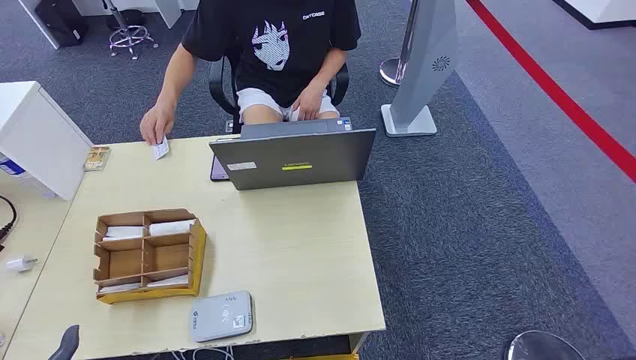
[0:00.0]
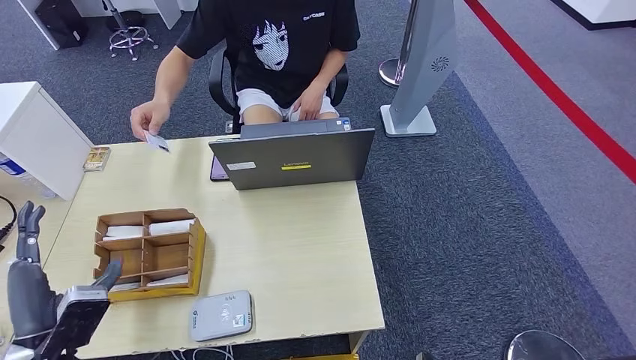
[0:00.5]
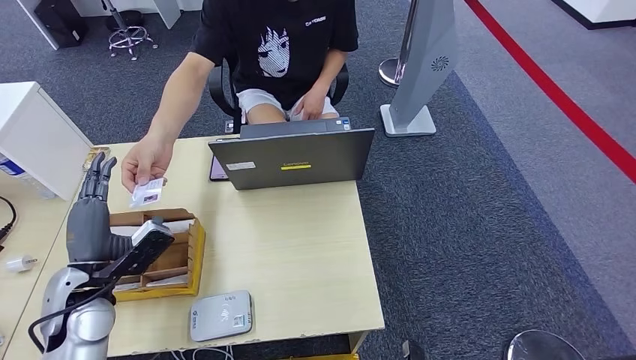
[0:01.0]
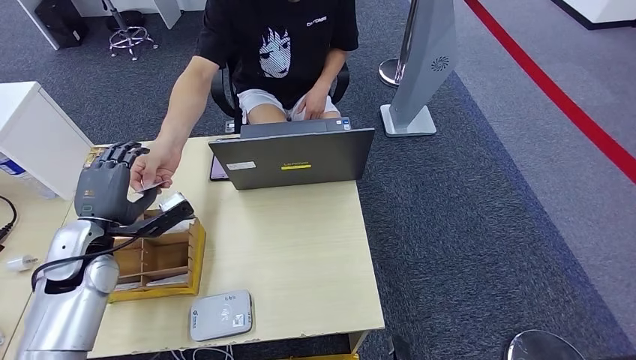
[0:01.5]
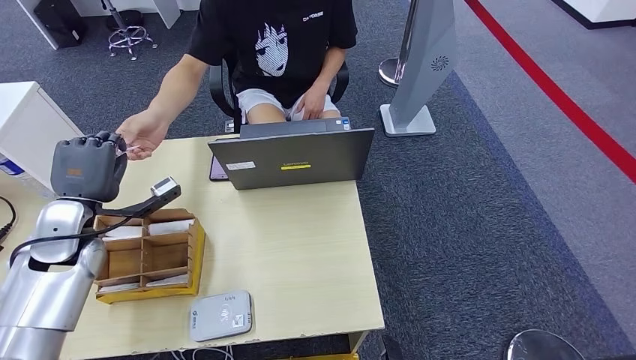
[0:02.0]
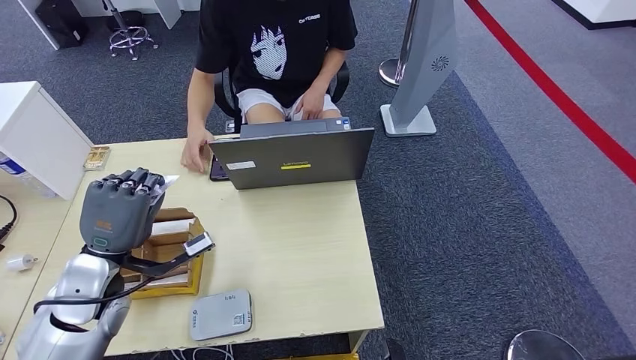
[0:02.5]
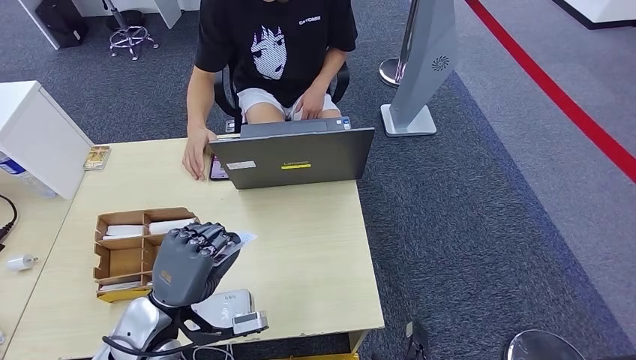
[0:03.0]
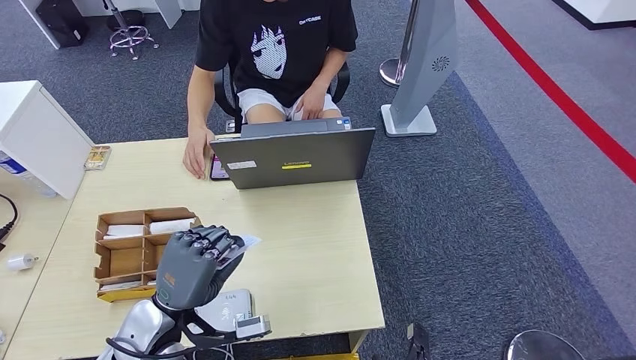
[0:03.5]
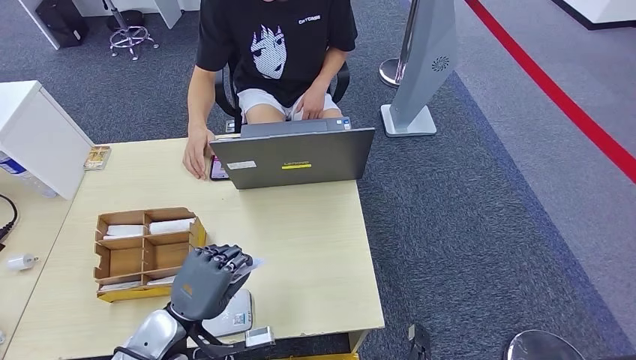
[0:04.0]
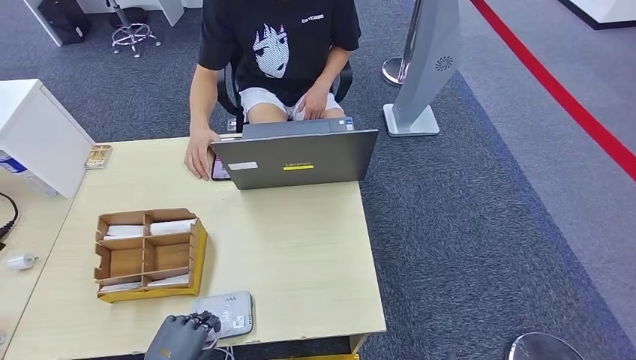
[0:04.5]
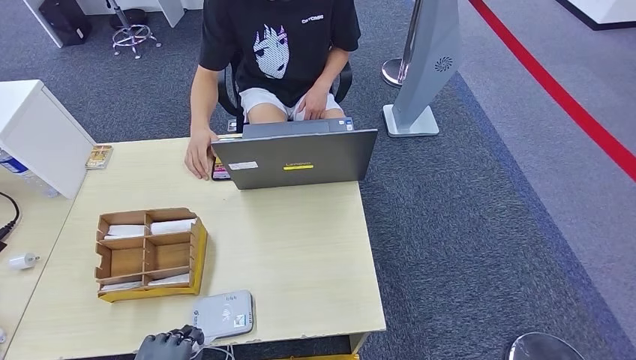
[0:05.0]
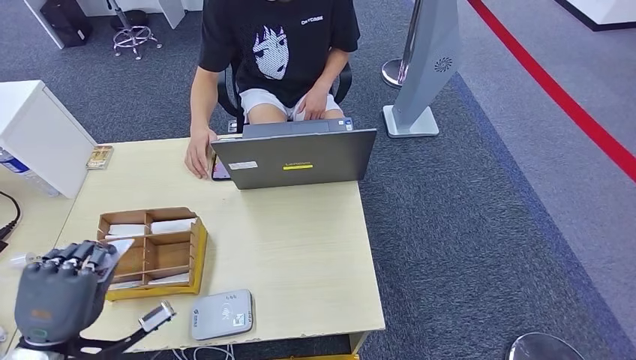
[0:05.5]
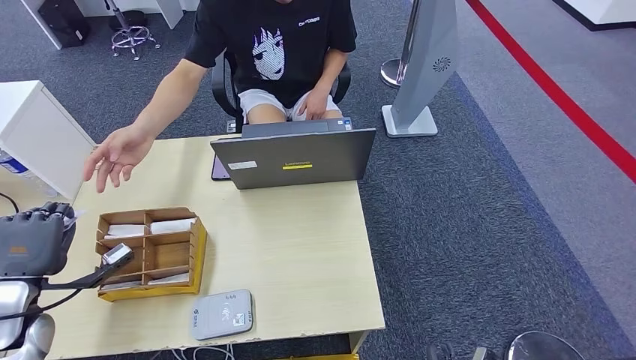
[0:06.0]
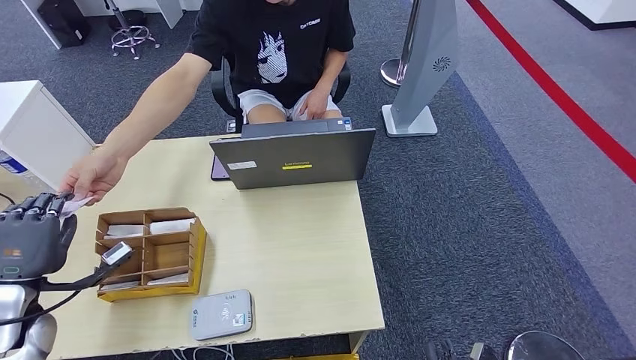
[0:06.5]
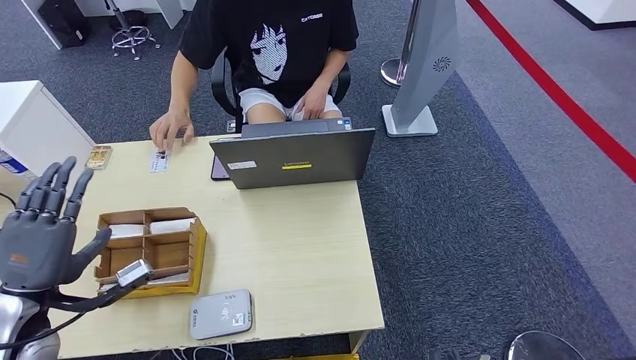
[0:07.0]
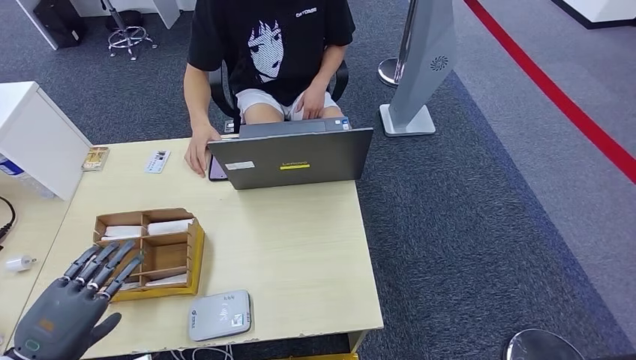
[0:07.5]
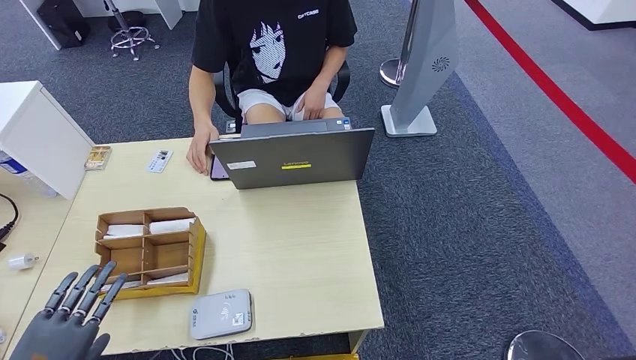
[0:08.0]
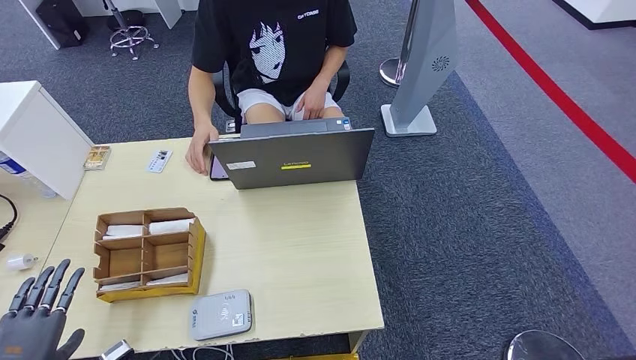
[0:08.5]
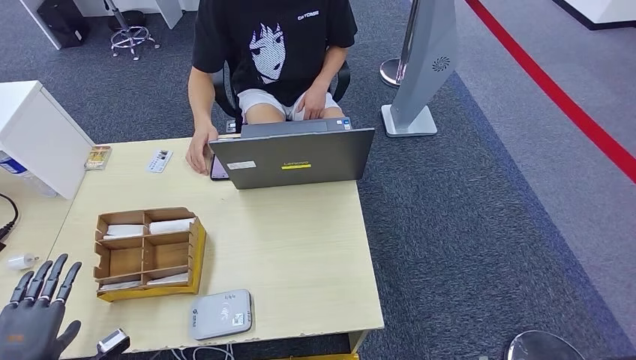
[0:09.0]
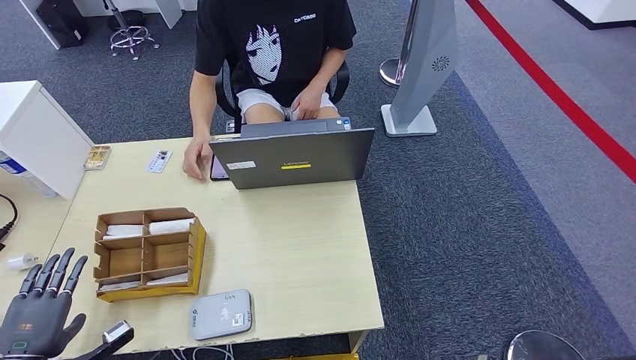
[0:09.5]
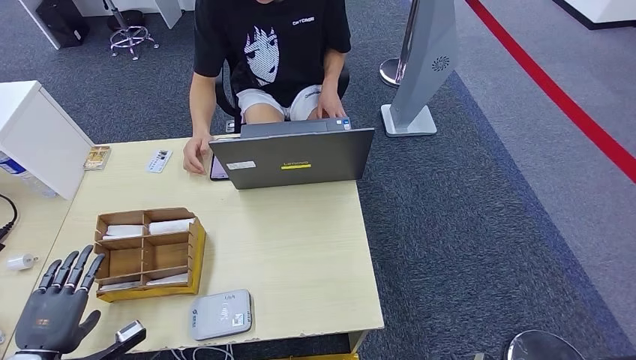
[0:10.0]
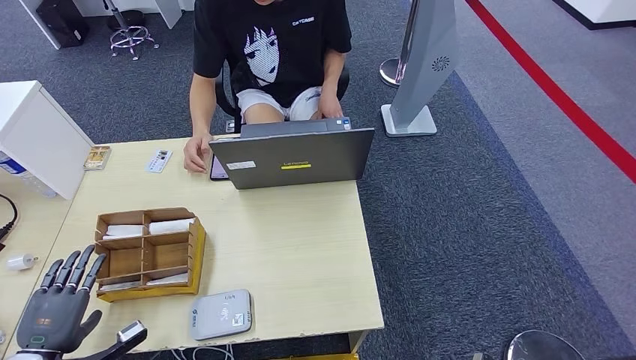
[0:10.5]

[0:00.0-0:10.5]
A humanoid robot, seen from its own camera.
Step, 0:00.0 to 0:02.0: Take the ID card from the person's hand.
Step, 0:02.5 to 0:05.0: Place the ID card on the card reader.
Step, 0:05.5 to 0:06.5: Hand the ID card to the person.
0:02.0 to 0:04.0: The left hand shifts approximately 25 cm backward, to the right and downward.
0:04.0 to 0:06.5: The left hand heads to the left, covering roughly 20 cm, while the right hand shifts approximately 5 cm to the right.
0:06.5 to 0:08.5: The left hand heads backward, covering approximately 15 cm.
0:08.5 to 0:10.5: The left hand changes place by some 5 cm.

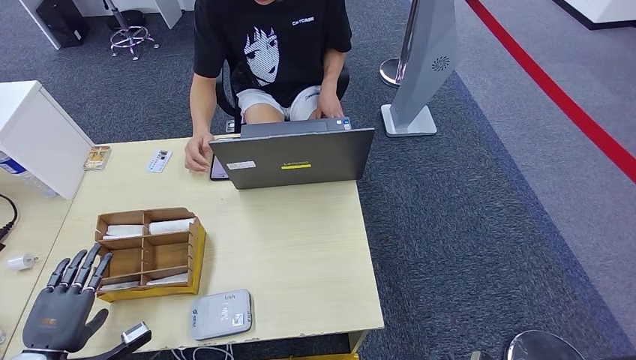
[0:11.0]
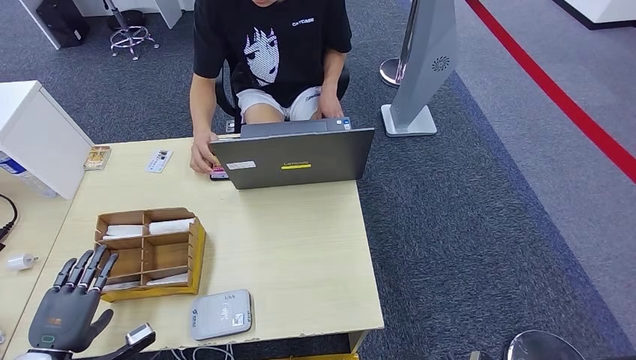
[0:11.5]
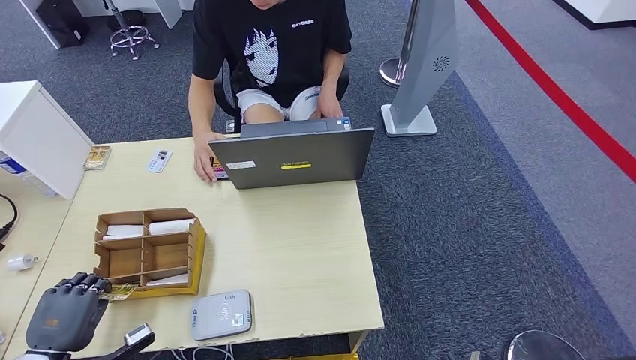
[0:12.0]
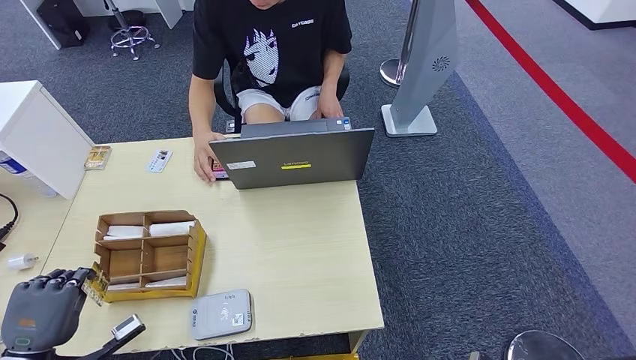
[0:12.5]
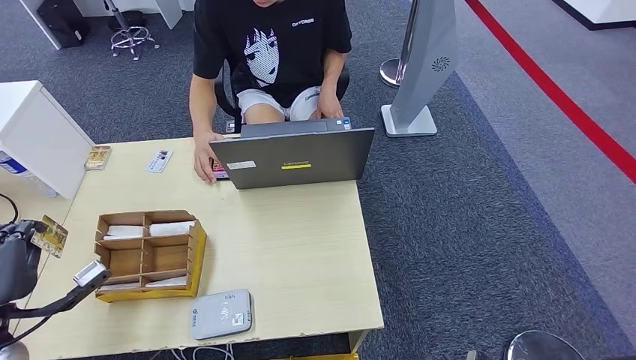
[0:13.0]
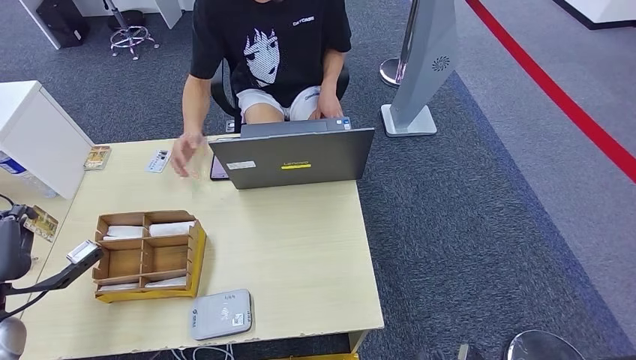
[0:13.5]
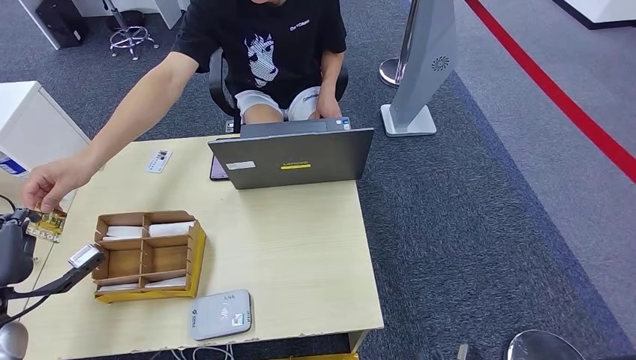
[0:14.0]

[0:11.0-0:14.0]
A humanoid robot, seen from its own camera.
Step, 0:13.0 to 0:14.0: Hand the room key to the person.
0:11.0 to 0:12.5: The hands stay close to where they were, moving slightly.
0:12.5 to 0:14.0: The left hand goes some 10 cm forward, upward and to the left.
